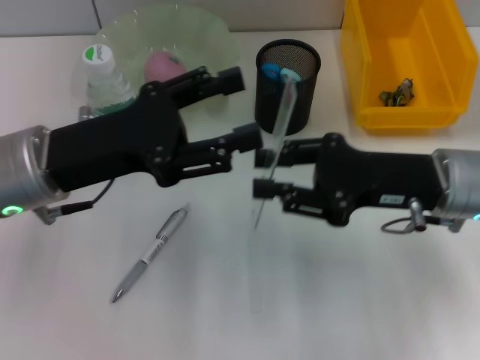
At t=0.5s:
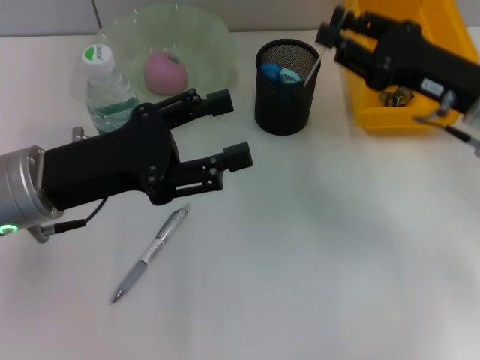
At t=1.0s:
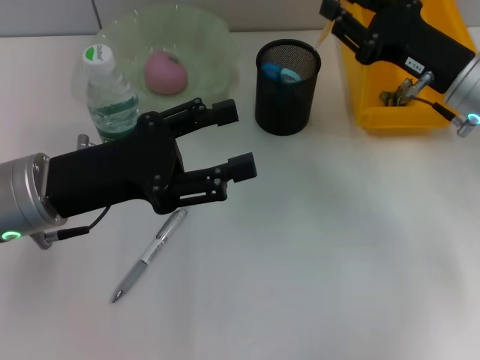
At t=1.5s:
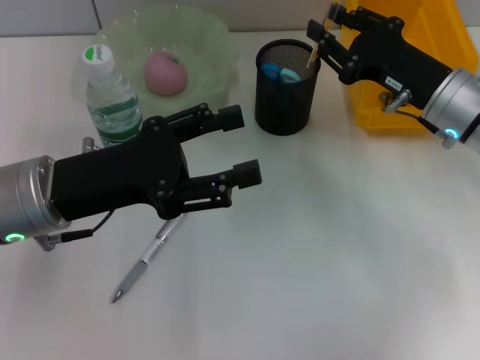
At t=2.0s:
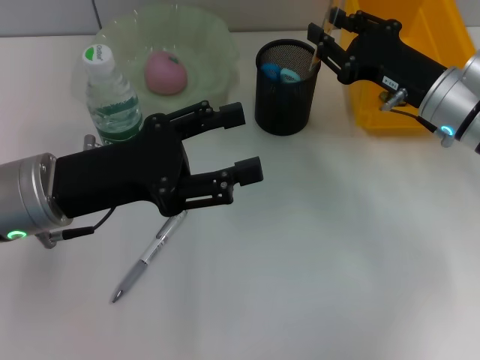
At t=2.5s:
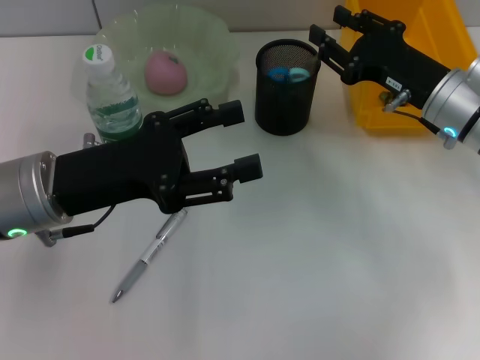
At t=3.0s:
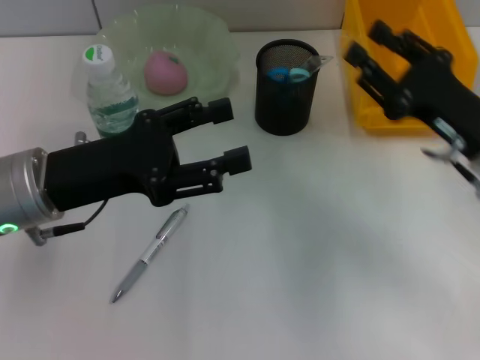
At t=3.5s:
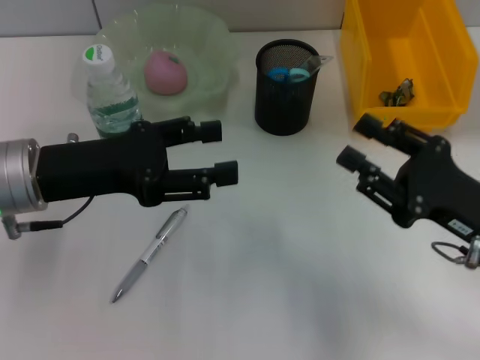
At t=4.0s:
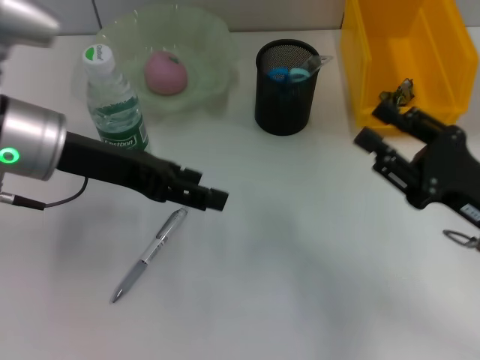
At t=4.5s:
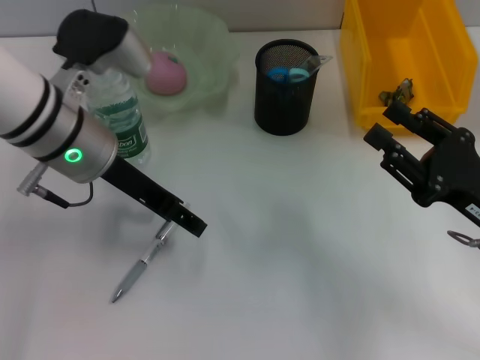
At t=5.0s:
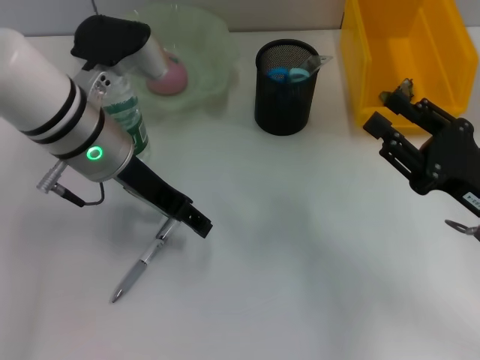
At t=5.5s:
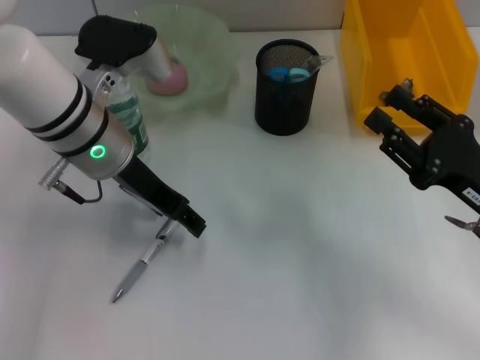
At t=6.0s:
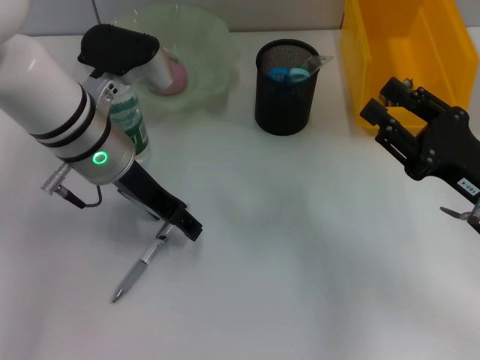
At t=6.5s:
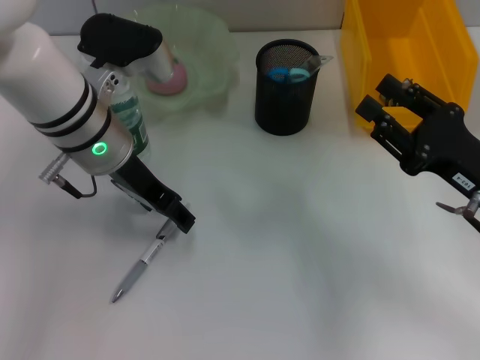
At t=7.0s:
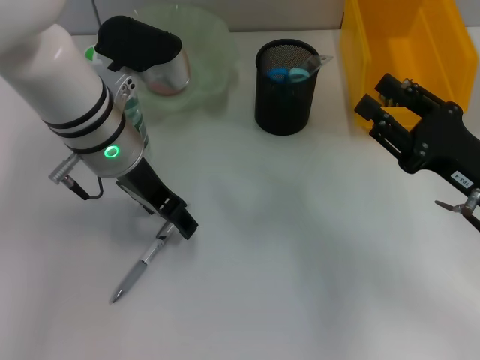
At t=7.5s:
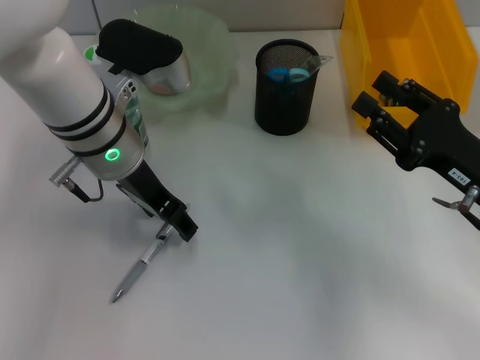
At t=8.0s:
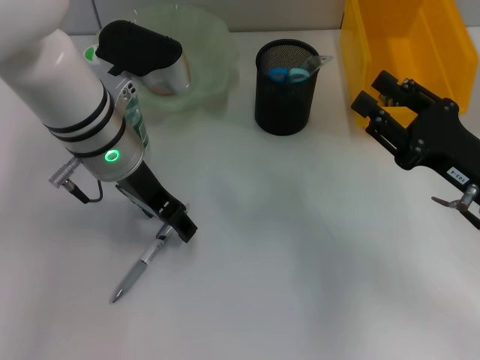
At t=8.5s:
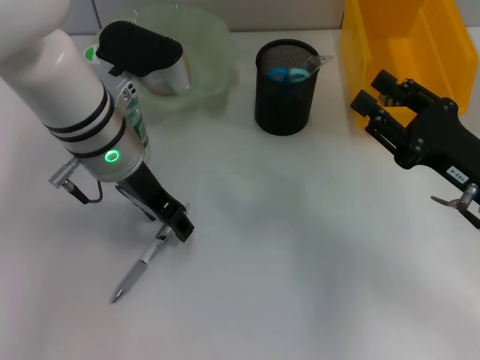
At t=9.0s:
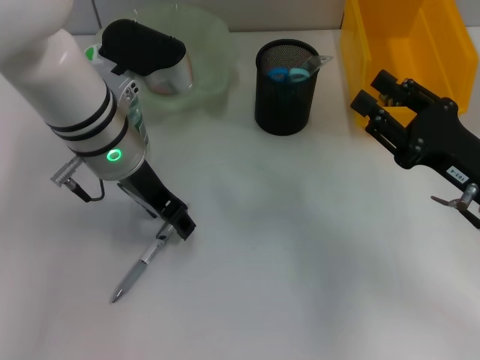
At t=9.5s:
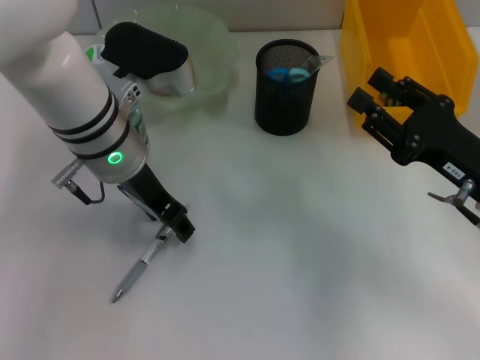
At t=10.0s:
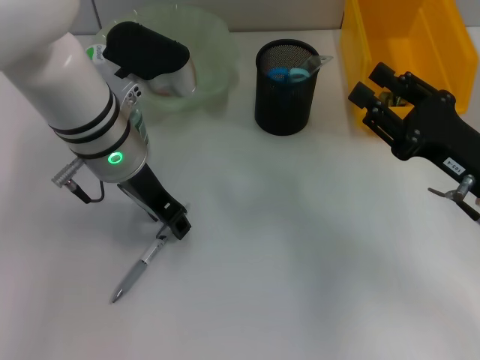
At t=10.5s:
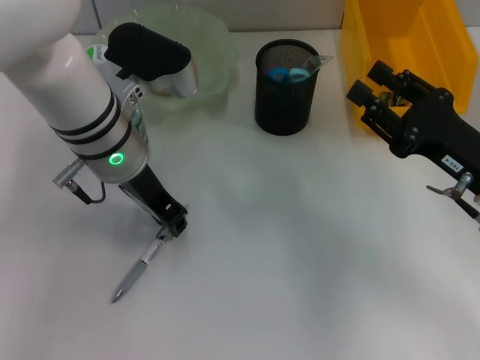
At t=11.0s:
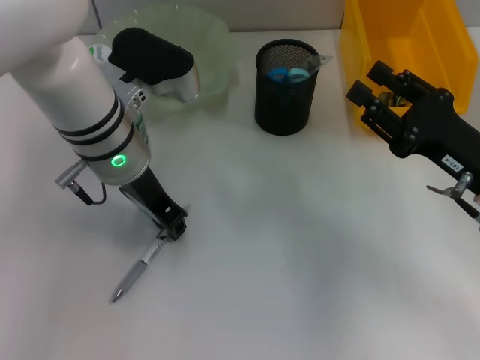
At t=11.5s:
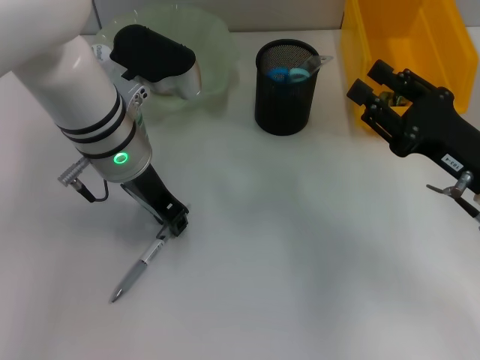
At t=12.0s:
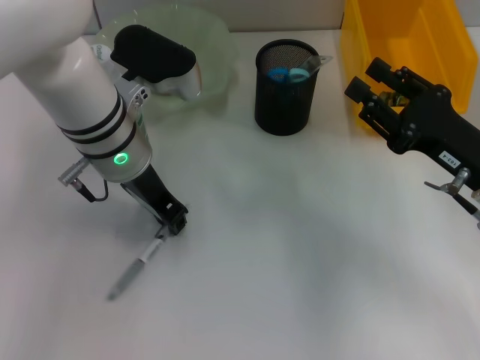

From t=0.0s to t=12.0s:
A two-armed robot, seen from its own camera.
Step, from t=0.0s to t=2.5s: Place the ruler into the pen holder with the right hand.
From t=0.0s to t=2.0s: The right gripper travels forward by roughly 5 cm.
From t=2.0s to t=4.0s: The right gripper moves backward, about 15 cm. Meanwhile the left gripper heads forward, covering some 5 cm.
From t=4.0s to t=6.0s: The left gripper goes roughly 5 cm to the right.
From t=6.0s to t=8.0s: The grippers move only a little.
From t=8.0s to t=10.0s: Both grippers stay put.
From t=10.0s to t=12.0s: The left gripper closes up.

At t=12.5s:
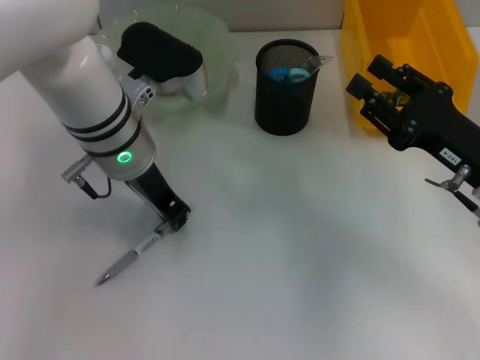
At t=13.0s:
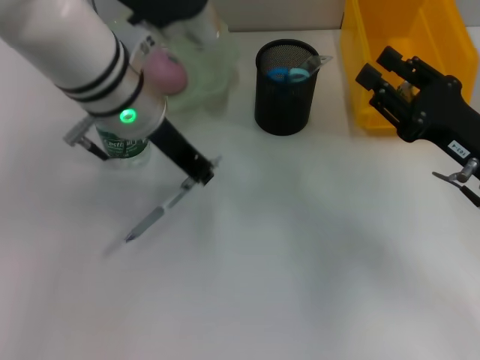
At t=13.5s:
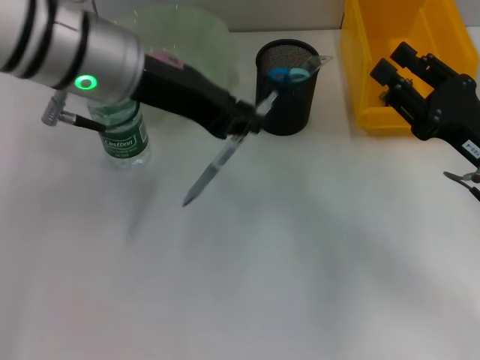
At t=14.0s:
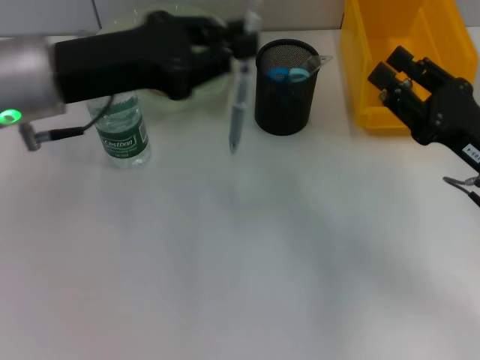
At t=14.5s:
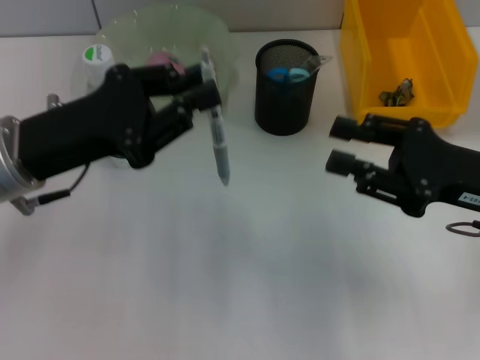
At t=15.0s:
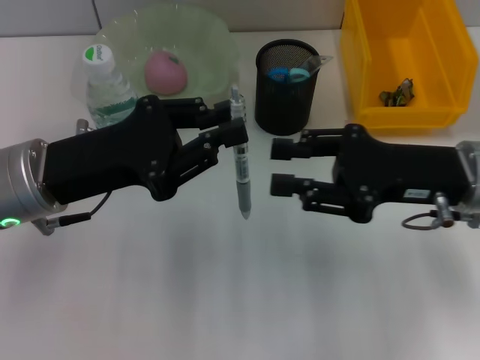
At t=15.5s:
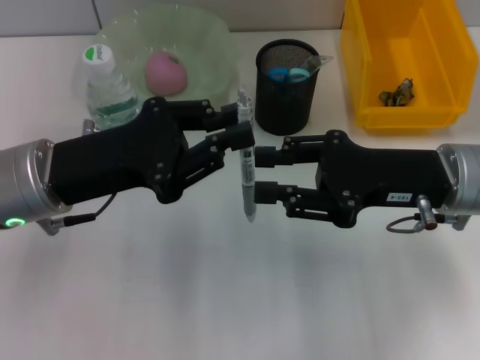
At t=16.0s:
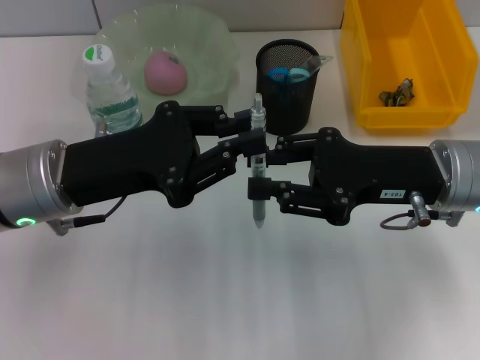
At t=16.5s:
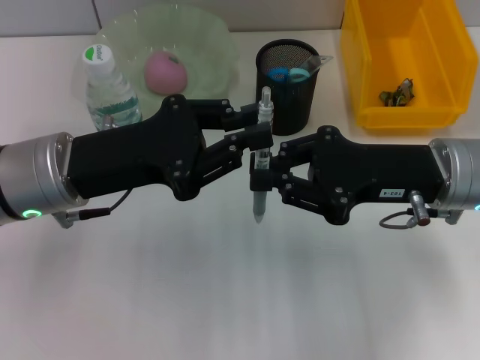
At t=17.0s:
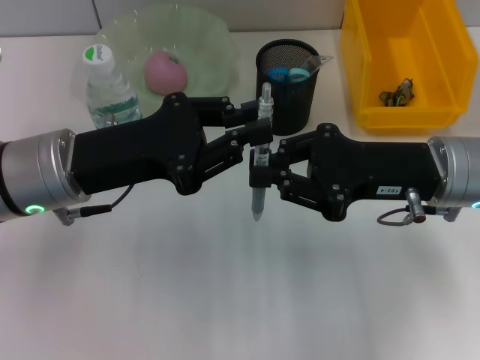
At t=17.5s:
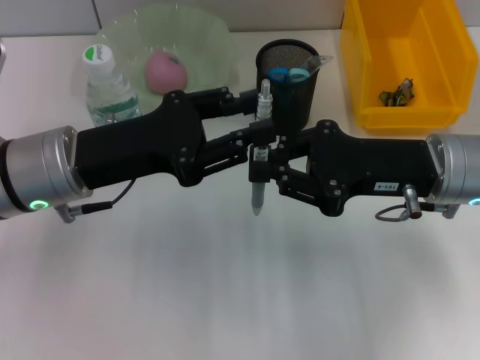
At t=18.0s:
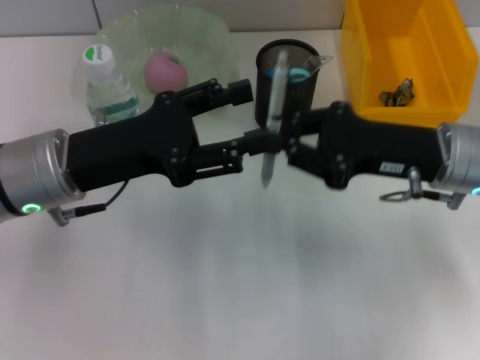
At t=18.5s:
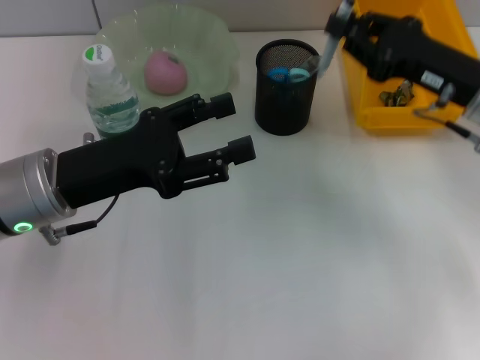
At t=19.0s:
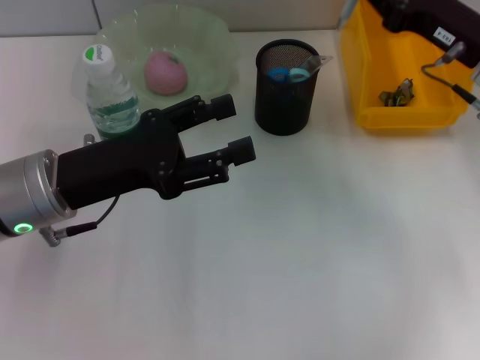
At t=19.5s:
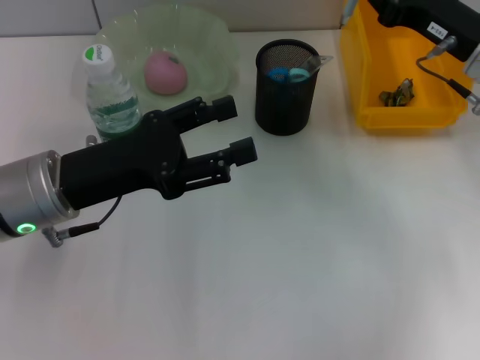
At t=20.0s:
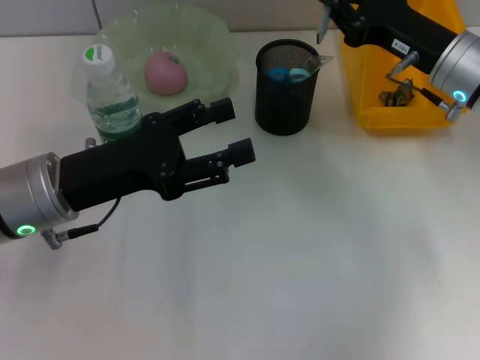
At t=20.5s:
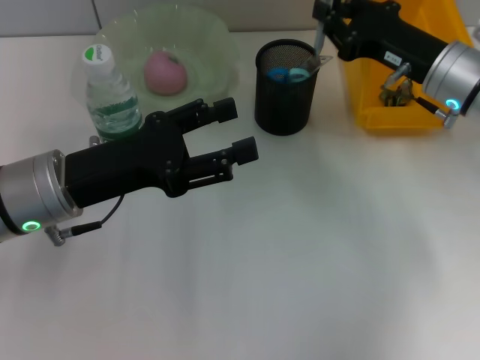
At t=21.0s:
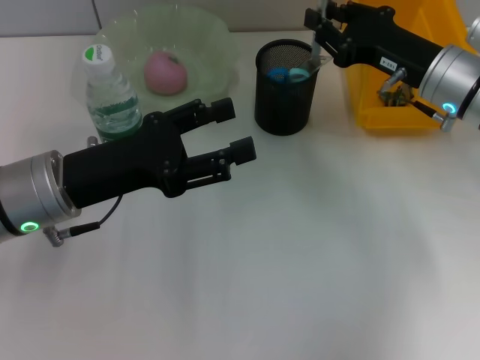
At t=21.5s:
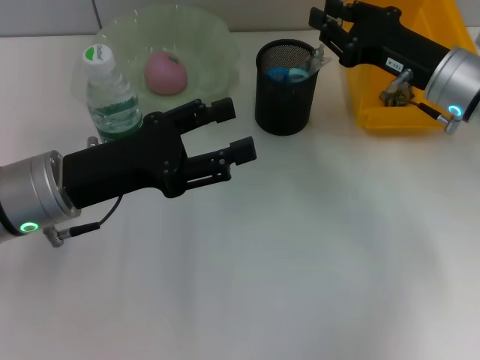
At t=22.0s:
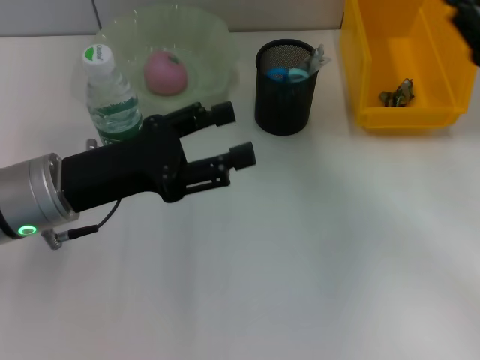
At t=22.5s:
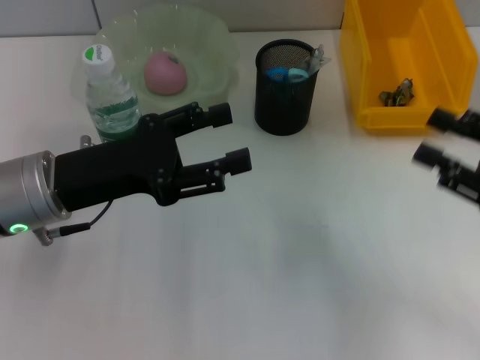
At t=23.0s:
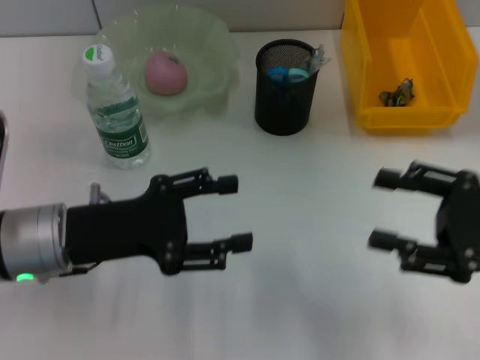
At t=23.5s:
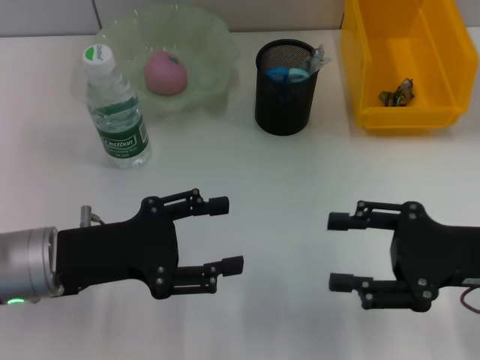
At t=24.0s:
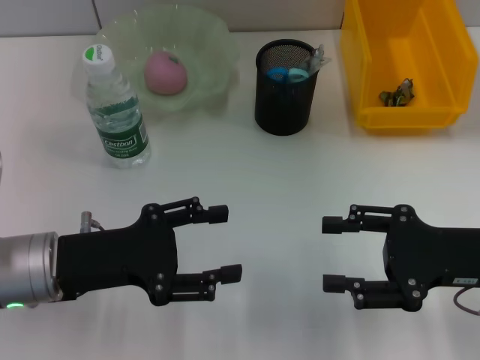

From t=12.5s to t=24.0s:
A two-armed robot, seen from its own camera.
Step, from t=12.5s to t=17.5s: Pass the gray spring-action pen from the left hand to the right hand.
Step, from t=18.0s to t=21.5s: Place the gray spring-action pen into the pen holder with the right hand.
From t=12.5s to t=14.5s: The left gripper is displaced to the left and backward by about 15 cm.
From t=14.5s to t=16.5s: The right gripper is displaced to the left by some 5 cm, and closes.
From t=16.5s to t=18.5s: The left gripper opens its fingers, while the right gripper moves some 5 cm.
From t=18.5s to t=20.0s: There are only small adjustments of the grippers.
From t=20.0s to t=22.0s: The right gripper moves to the right and backward, approximately 10 cm.
From t=22.0s to t=24.0s: The right gripper heads backward, covering roughly 5 cm, and opens its fingers. Meanwhile the left gripper ends up roughly 5 cm from where it was.
